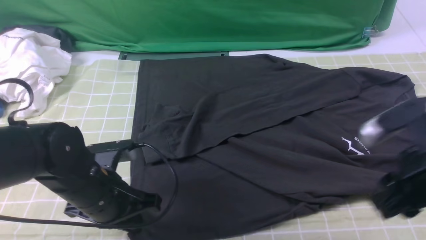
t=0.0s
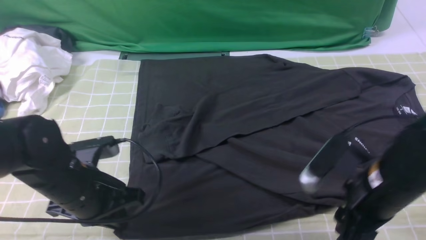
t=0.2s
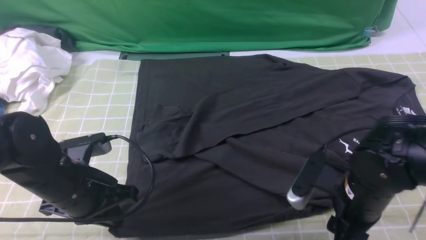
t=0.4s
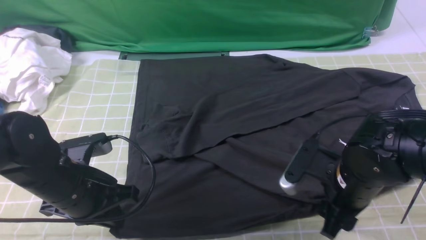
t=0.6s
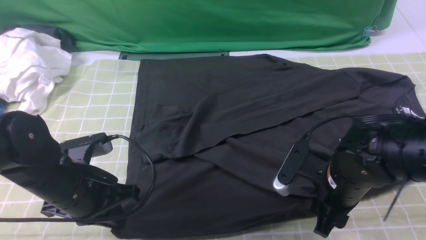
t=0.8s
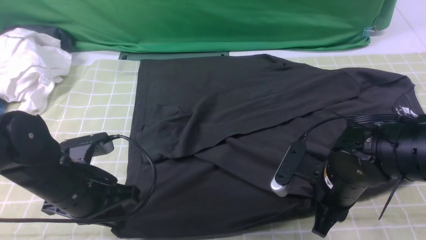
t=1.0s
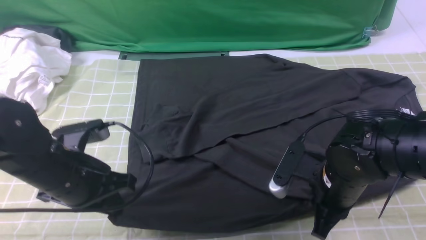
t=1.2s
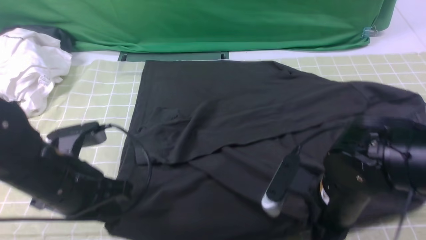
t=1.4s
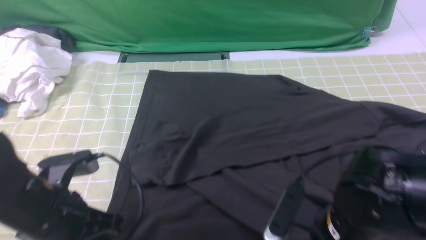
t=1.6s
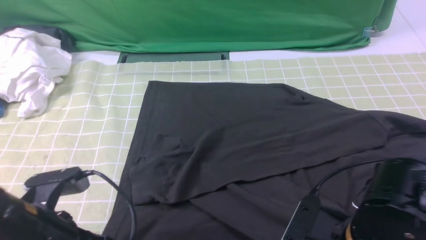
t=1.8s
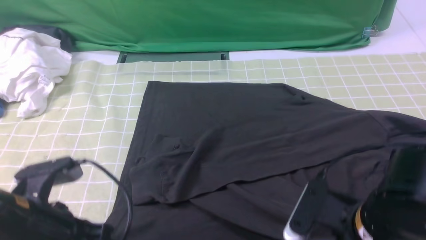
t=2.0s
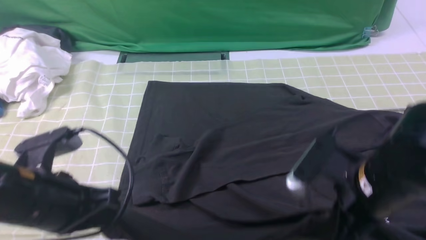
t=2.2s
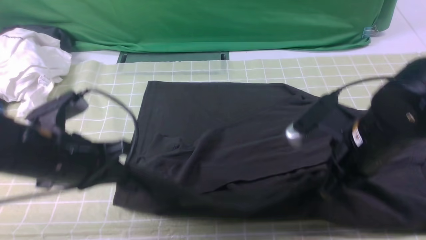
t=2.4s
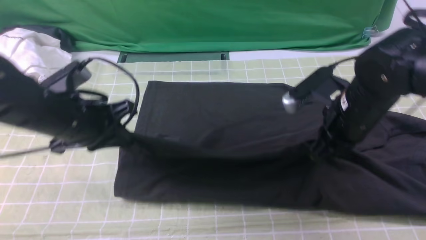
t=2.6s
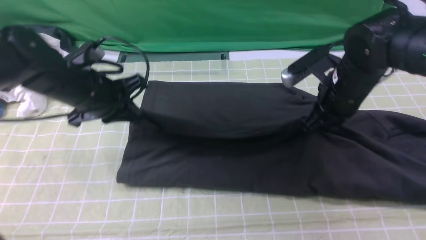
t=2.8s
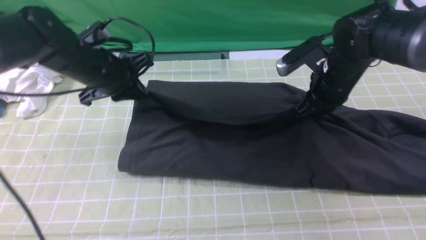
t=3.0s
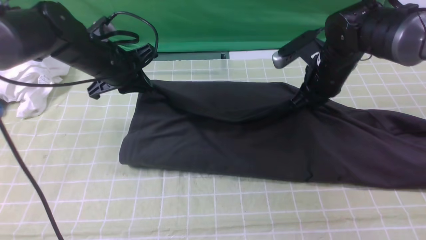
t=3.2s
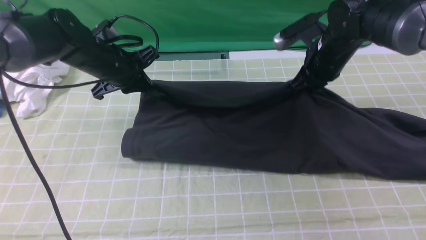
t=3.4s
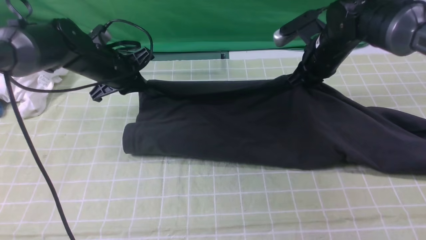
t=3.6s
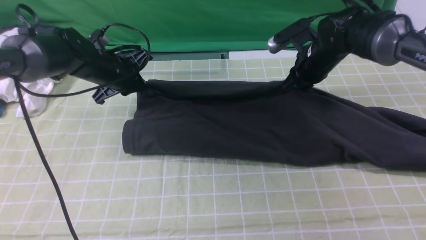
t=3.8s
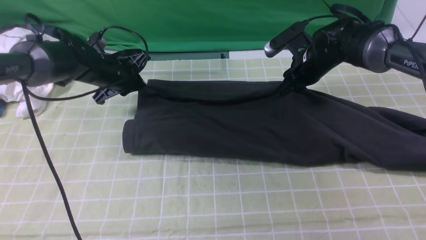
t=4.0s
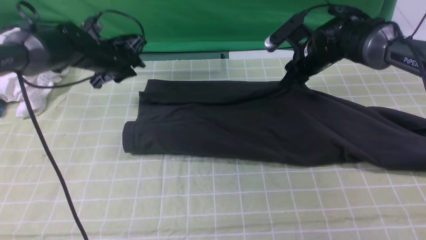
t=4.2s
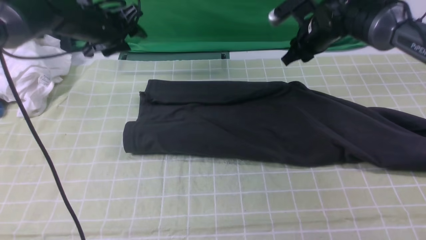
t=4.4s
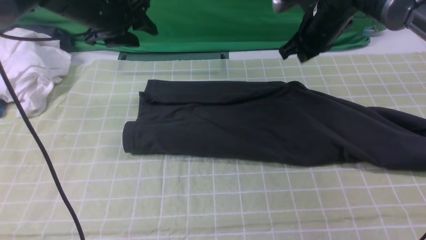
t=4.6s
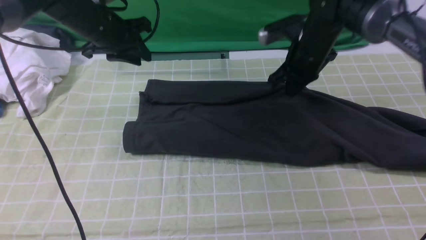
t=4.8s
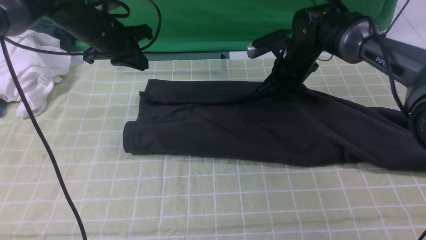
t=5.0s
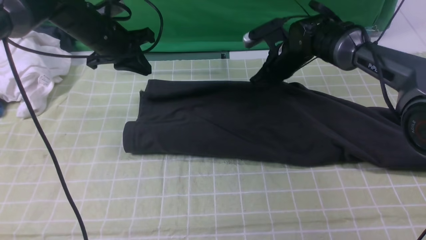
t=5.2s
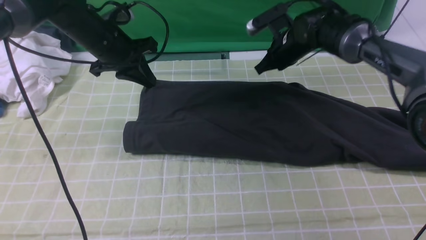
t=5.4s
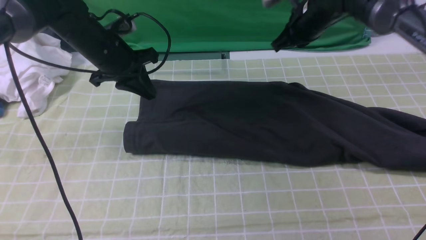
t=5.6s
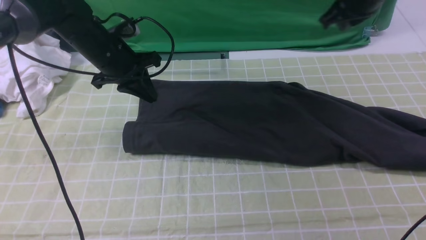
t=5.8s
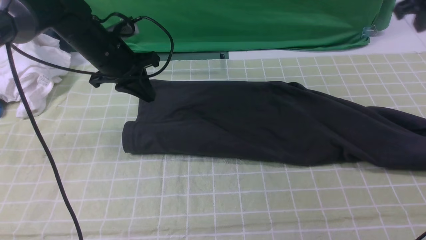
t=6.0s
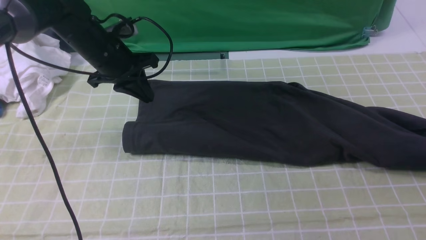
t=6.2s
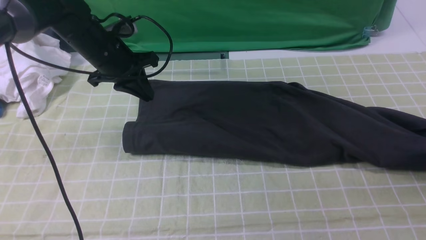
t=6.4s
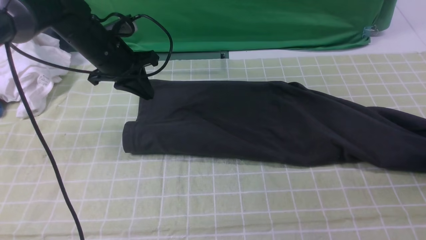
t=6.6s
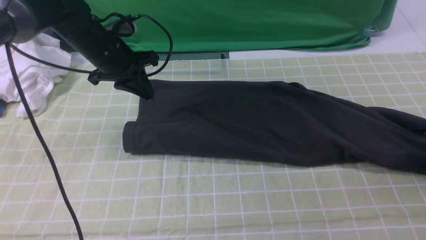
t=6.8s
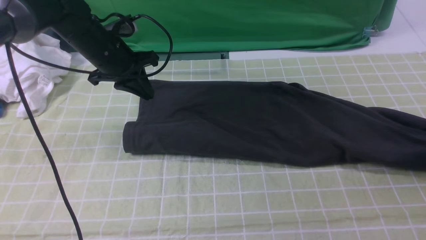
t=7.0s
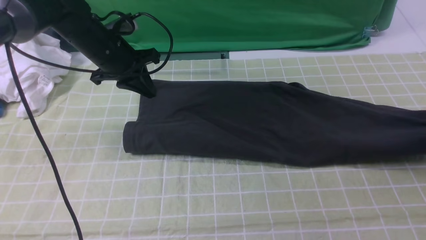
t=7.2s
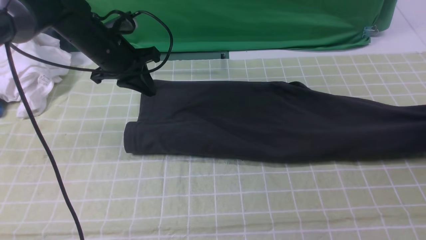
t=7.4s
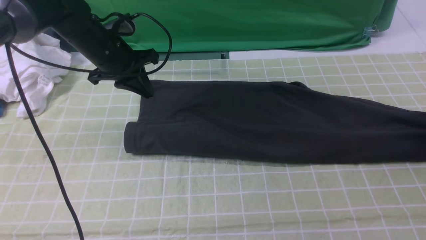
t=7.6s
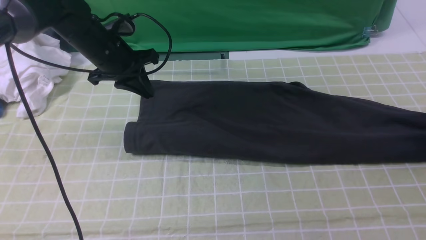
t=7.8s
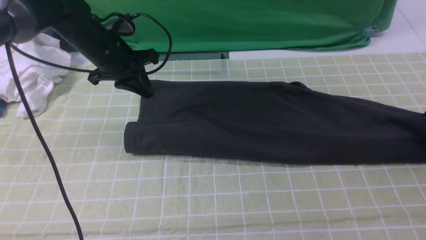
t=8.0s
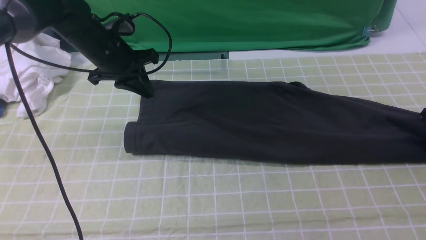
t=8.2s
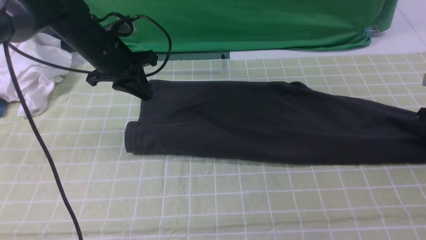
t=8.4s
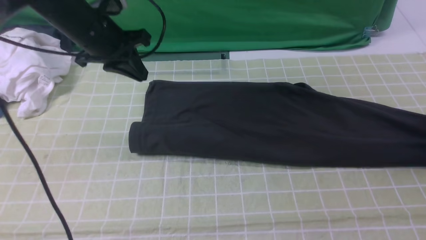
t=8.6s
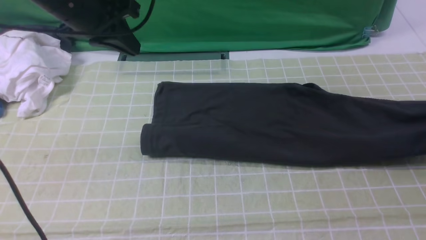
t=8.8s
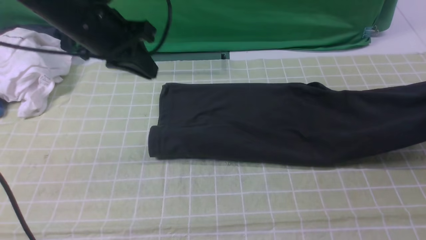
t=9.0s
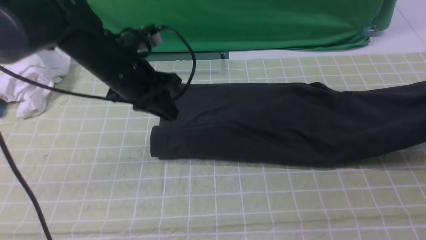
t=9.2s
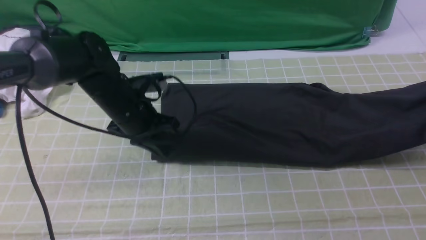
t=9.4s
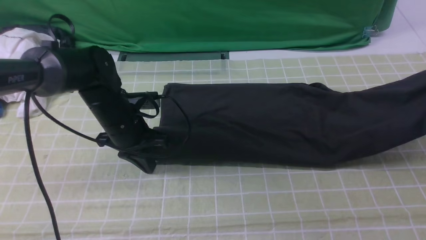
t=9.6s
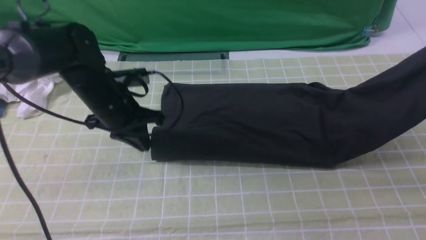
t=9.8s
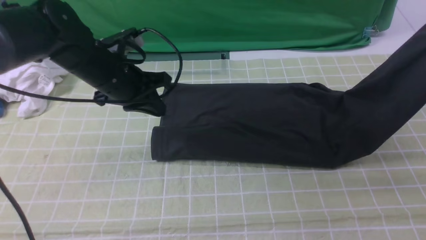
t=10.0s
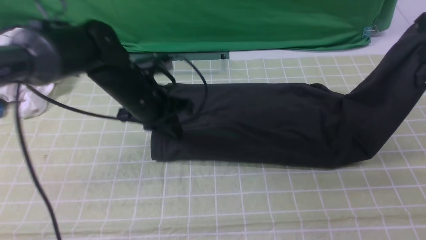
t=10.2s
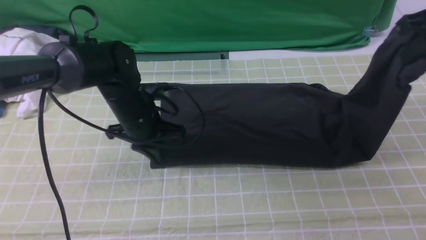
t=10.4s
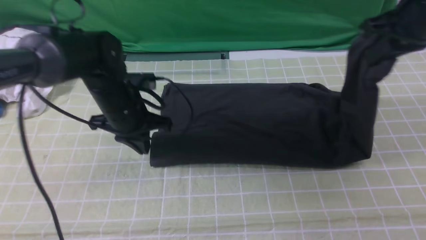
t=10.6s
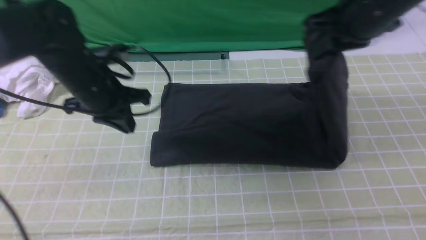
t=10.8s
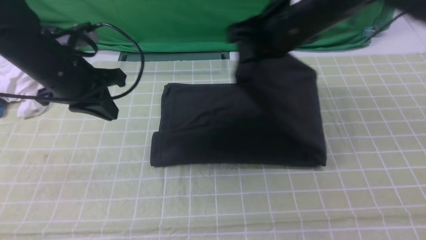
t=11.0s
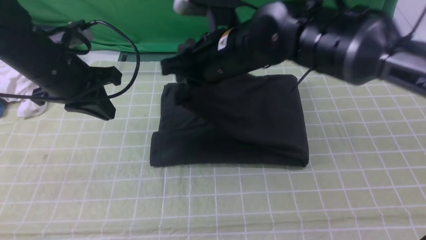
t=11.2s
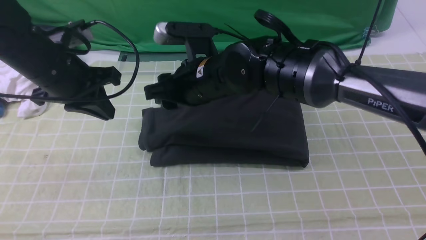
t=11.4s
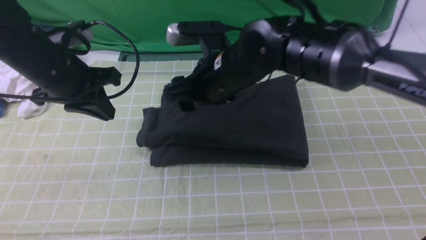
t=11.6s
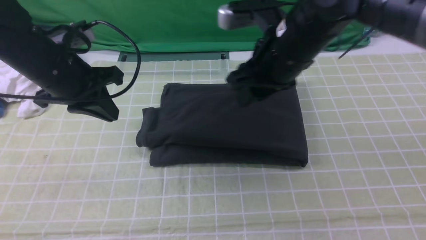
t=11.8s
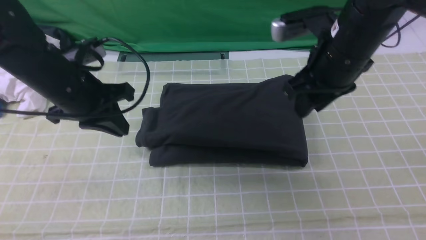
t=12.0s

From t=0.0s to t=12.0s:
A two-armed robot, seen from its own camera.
Step, from t=1.2s to t=5.2s: use both arms to drag the lower edge of the fabric forward and fold it over the upper edge.
Step, from t=5.6s to t=8.4s: use the right arm to clamp the right edge of the fabric.
Step, from t=8.6s to t=11.4s: use the right arm to drag the right edge of the fabric to the left and folds it over the left edge.
From t=0.0s to t=1.6s: The right gripper travels to the left and downward by roughly 10 cm, and closes; the left gripper travels backward by approximately 5 cm.
From t=1.6s to t=3.0s: The grippers both shift forward by some 25 cm.
From t=3.0s to t=4.4s: Both grippers move forward, some 10 cm. The left gripper opens.
From t=4.4s to t=6.0s: The right gripper is displaced to the right and upward by roughly 20 cm, and closes up; the left gripper shifts by roughly 5 cm, and closes.
From t=6.0s to t=7.6s: The right gripper travels downward and to the right by some 20 cm, and opens up.
From t=7.6s to t=9.0s: The left gripper is displaced upward and backward by approximately 10 cm, while the right gripper moves upward, roughly 10 cm, and closes its fingers.
From t=9.0s to t=10.4s: The right gripper moves to the left and upward, about 20 cm. The left gripper shifts some 10 cm downward.
From t=10.4s to t=12.0s: The left gripper travels upward and to the left by some 10 cm. Meanwhile the right gripper heads to the left and downward, covering approximately 15 cm, and opens.

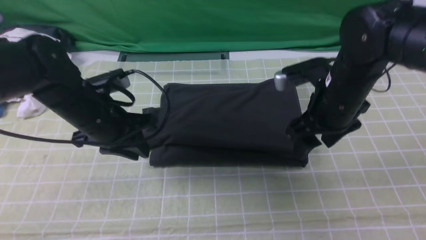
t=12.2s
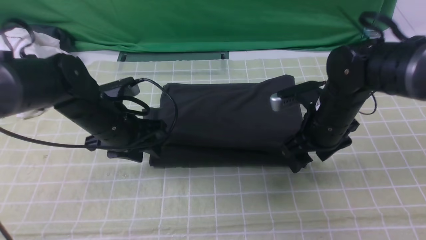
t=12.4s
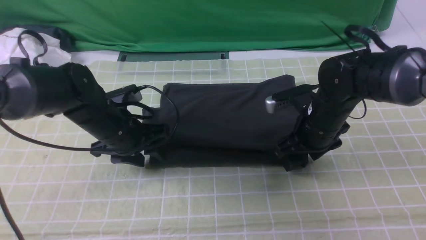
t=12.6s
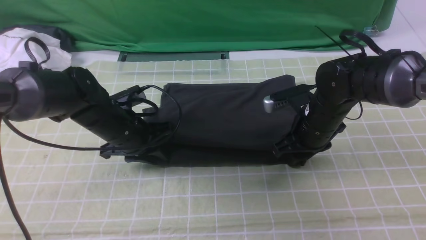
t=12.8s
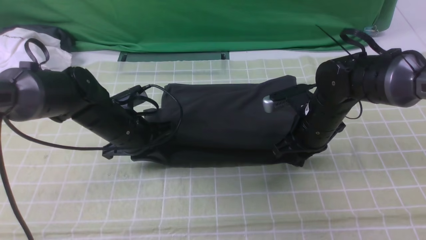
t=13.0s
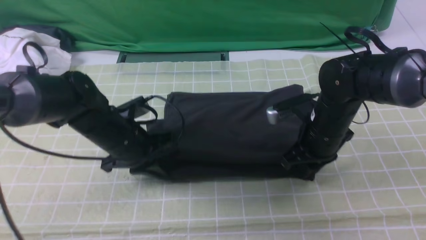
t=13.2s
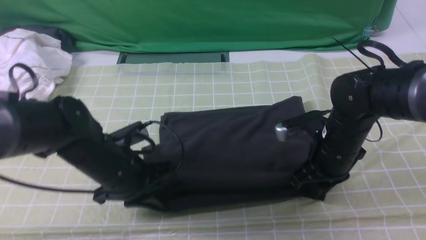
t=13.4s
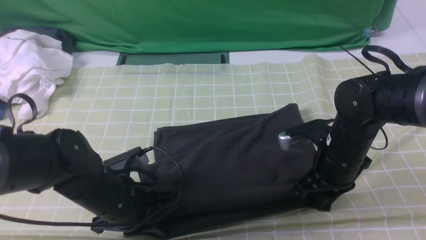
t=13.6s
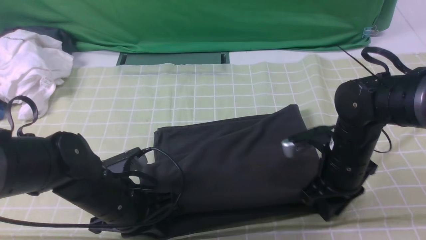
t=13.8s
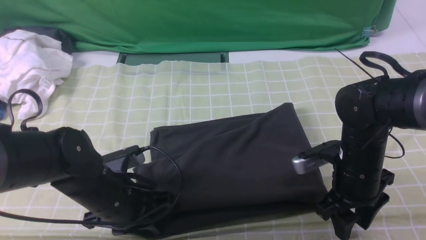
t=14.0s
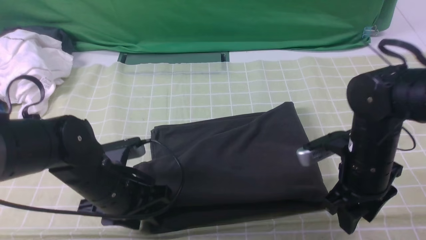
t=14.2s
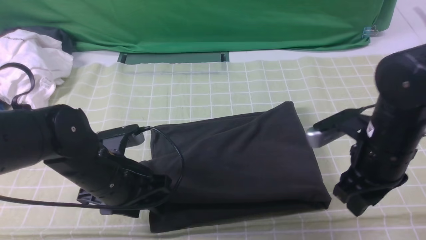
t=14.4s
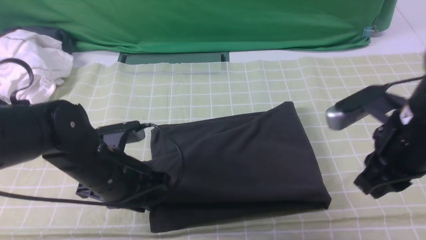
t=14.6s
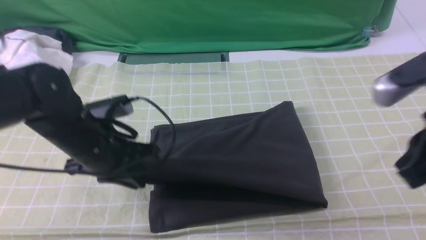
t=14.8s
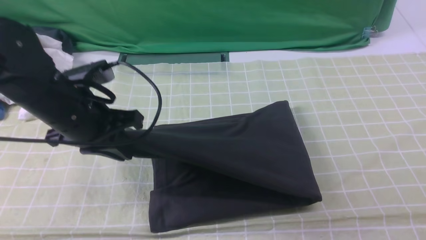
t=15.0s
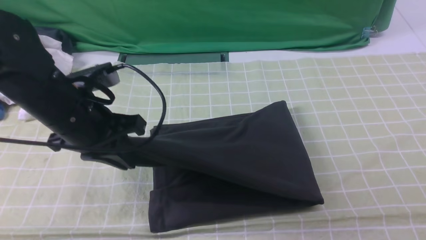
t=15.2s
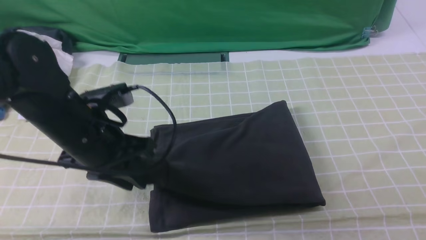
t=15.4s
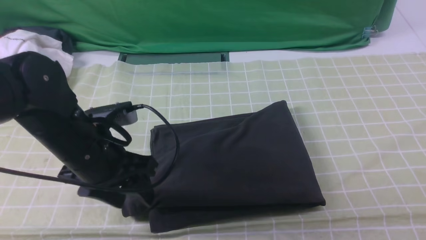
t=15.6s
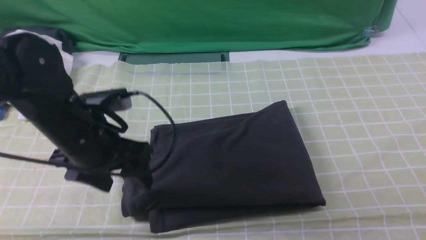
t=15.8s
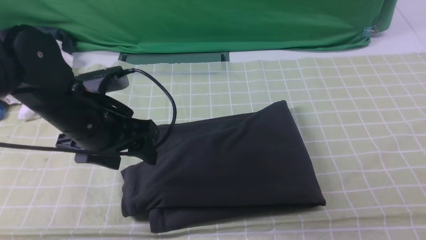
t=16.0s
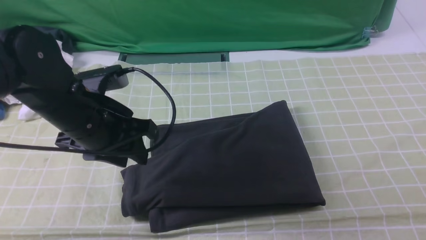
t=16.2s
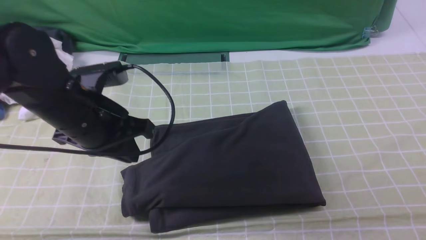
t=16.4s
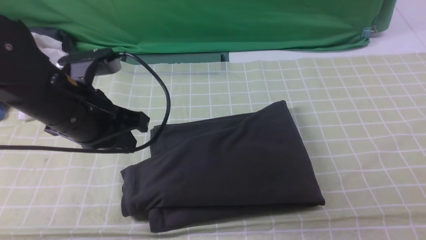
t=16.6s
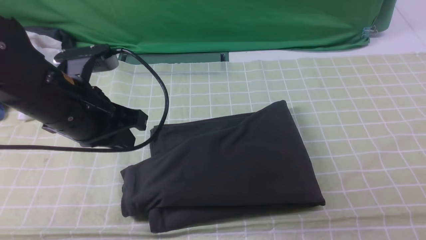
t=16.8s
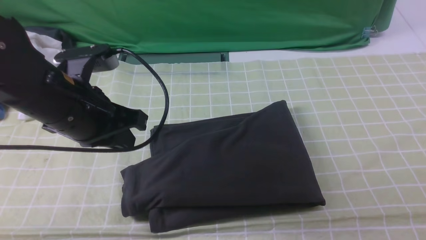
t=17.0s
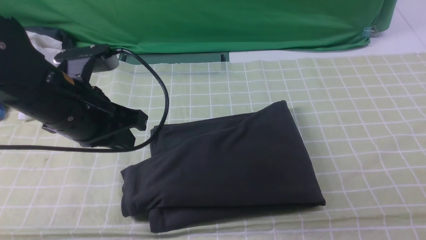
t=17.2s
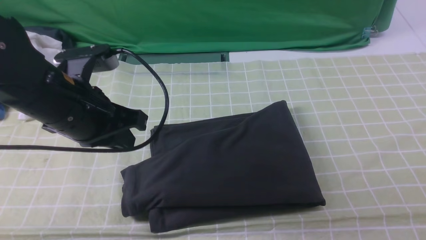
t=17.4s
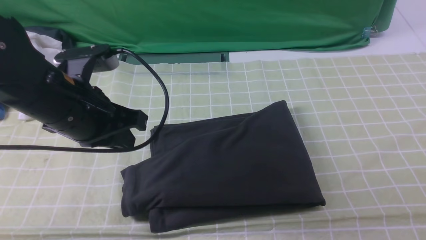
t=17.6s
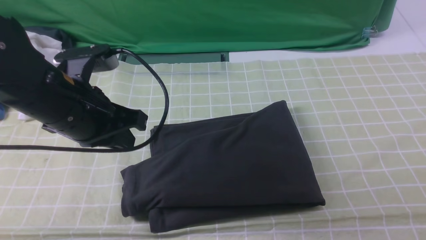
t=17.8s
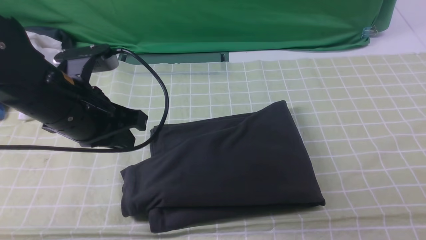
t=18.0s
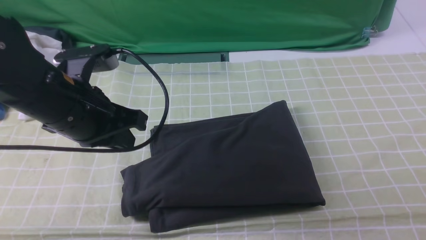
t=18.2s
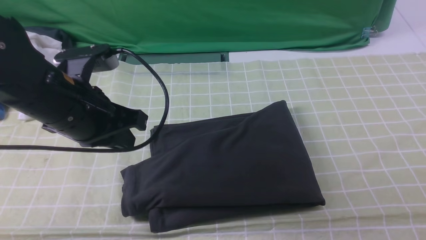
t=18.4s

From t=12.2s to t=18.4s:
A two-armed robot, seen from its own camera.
From t=12.2s to t=13.8s: The left gripper moves backward and downward, approximately 10 cm. The right gripper moves downward and backward, approximately 10 cm, and closes its fingers.
From t=13.8s to t=15.4s: The left gripper heads upward, covering approximately 10 cm, while the right gripper travels upward, backward and to the right by some 35 cm, and closes up.
From t=15.4s to t=16.8s: The right gripper moves downward, about 5 cm; the left gripper closes.
